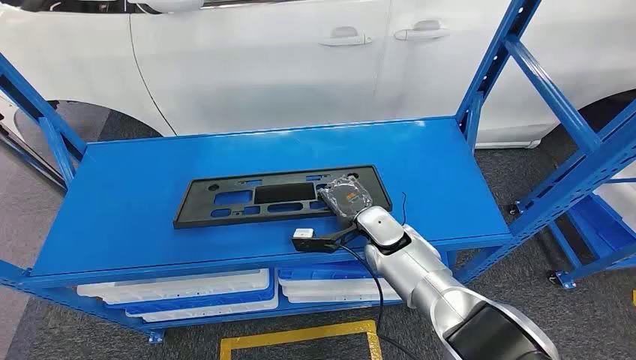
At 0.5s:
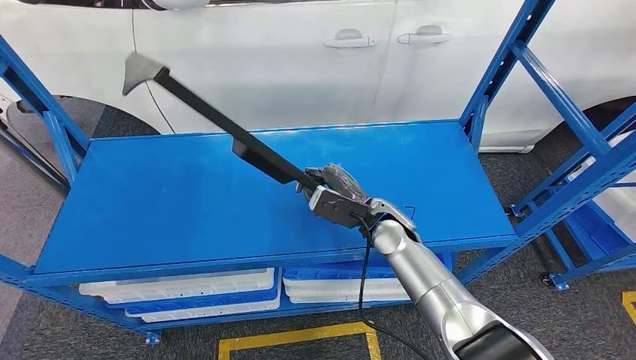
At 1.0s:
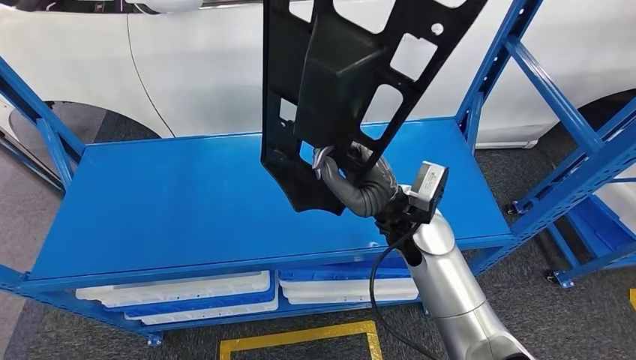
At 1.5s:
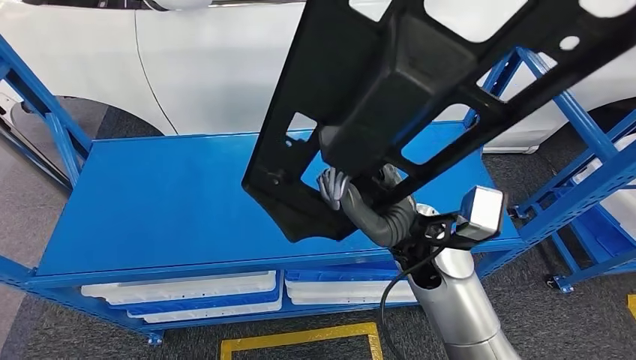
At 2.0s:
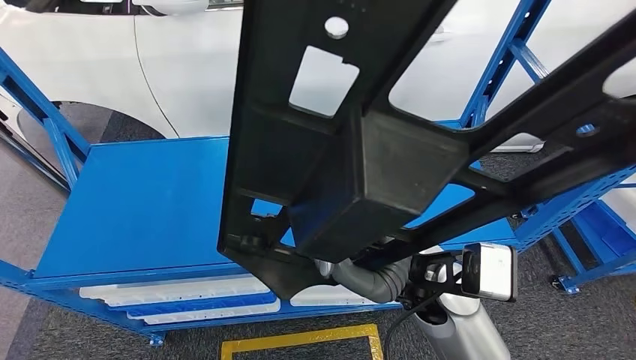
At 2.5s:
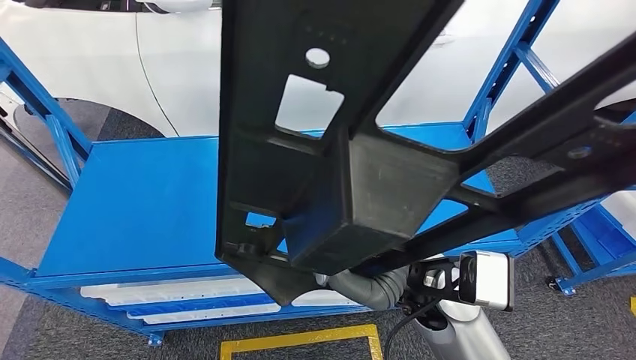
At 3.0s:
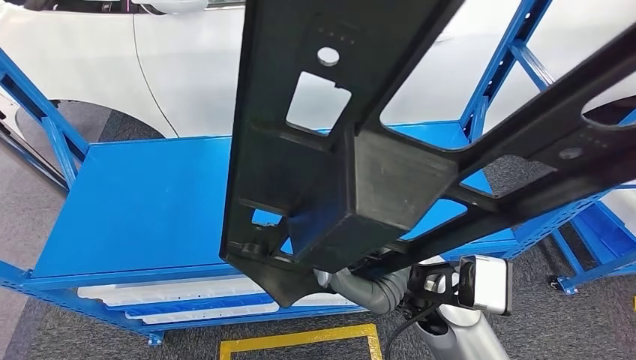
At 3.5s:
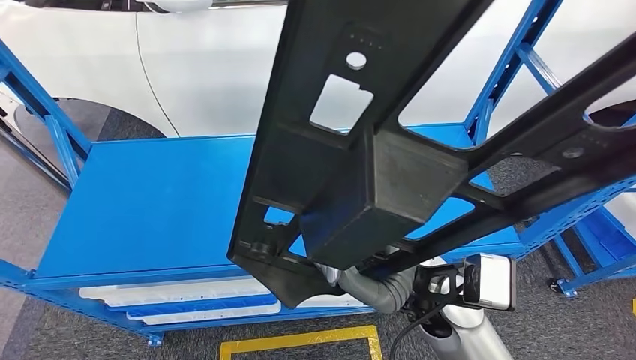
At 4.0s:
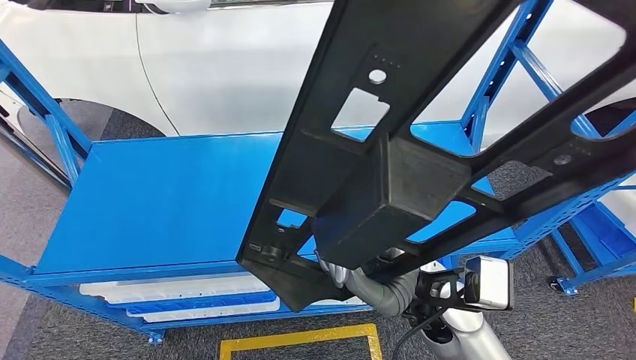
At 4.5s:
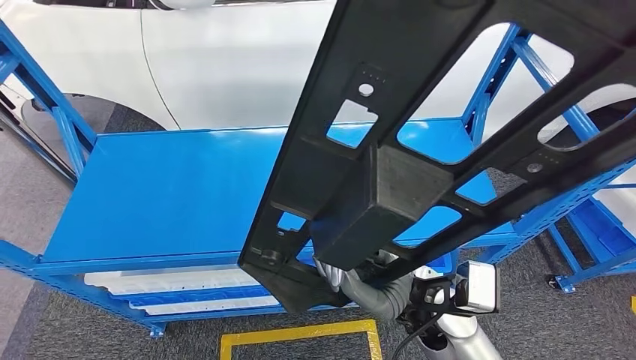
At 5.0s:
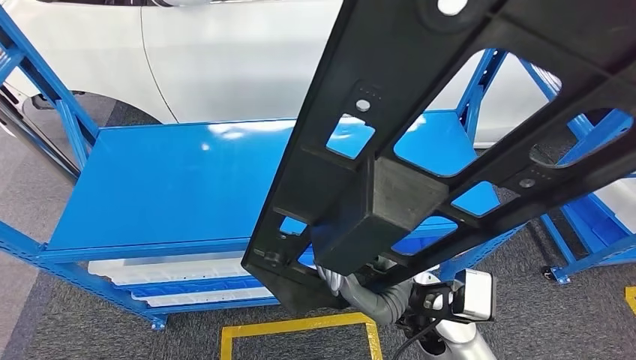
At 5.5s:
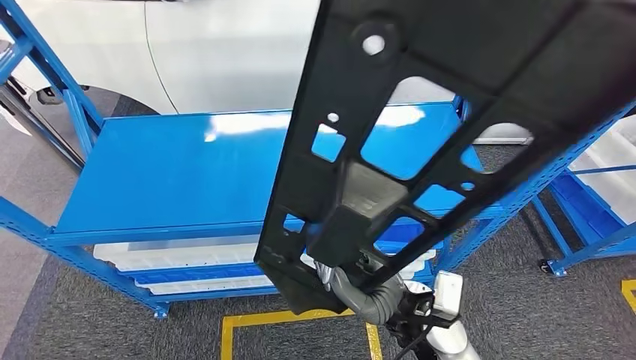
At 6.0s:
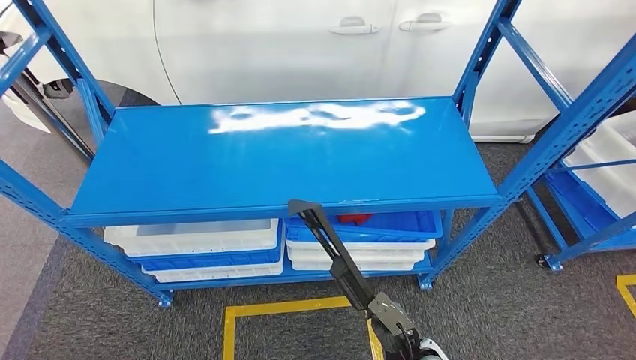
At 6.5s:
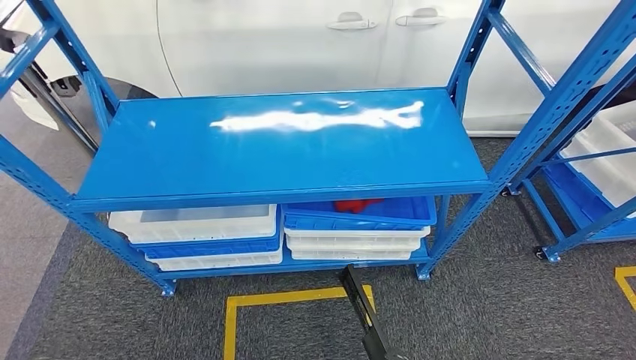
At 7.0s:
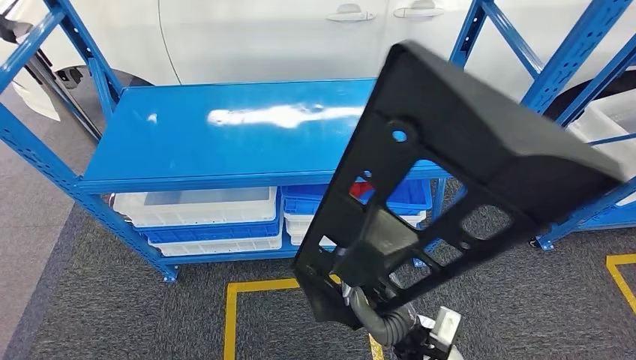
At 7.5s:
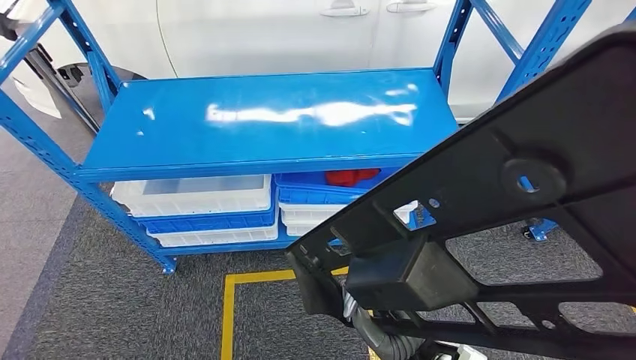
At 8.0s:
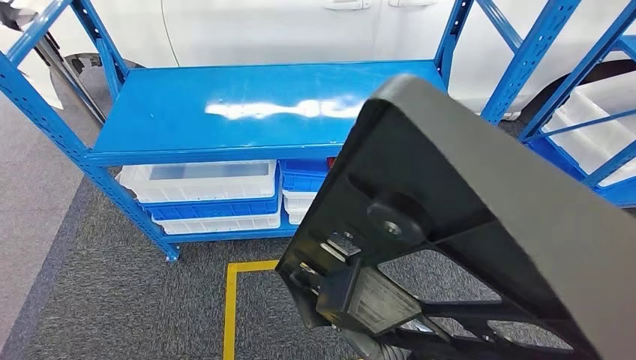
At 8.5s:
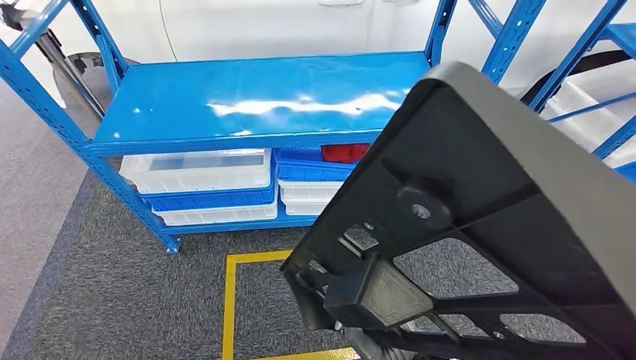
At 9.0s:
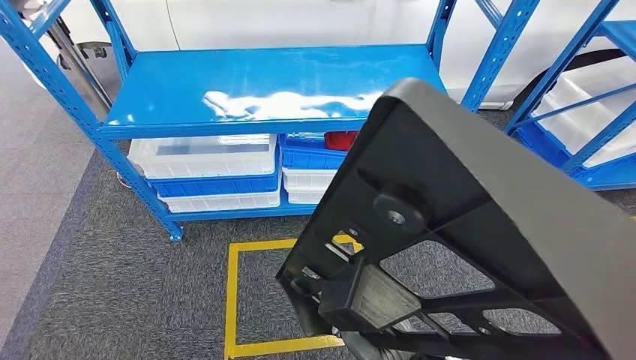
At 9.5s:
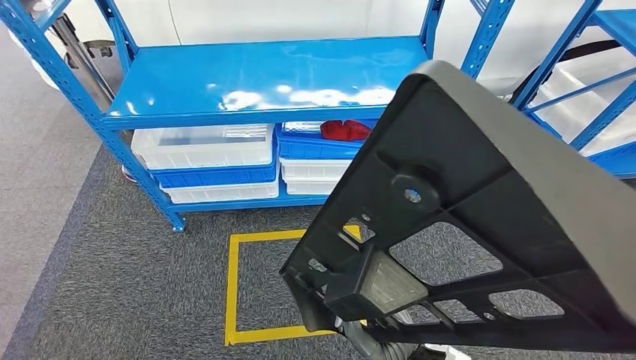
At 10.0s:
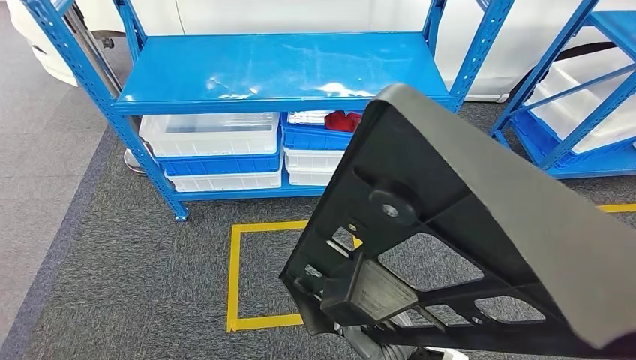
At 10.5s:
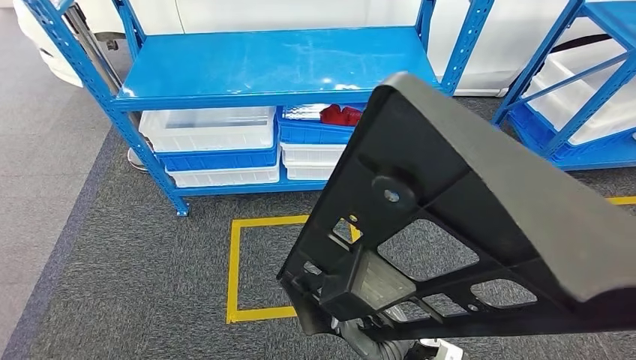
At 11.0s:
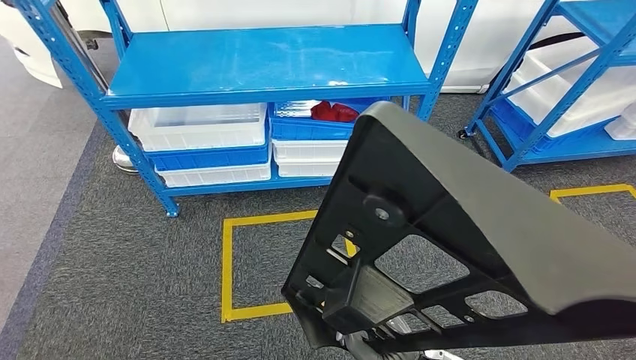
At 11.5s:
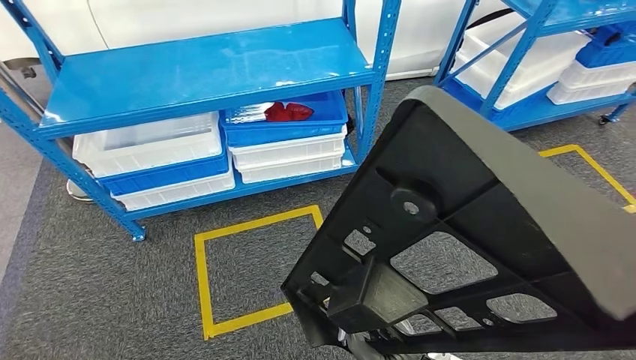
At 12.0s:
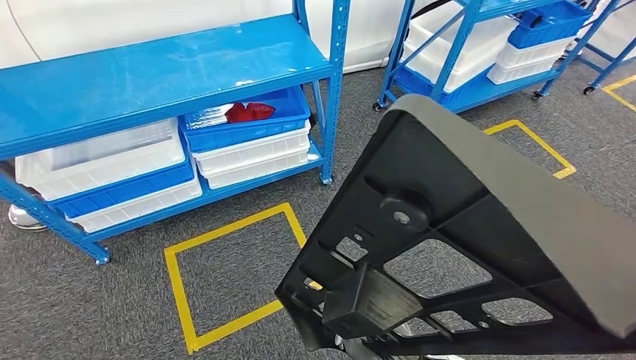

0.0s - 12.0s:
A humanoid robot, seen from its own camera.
Step, 0.0s - 5.5s: Pick up the large material from the shelf.

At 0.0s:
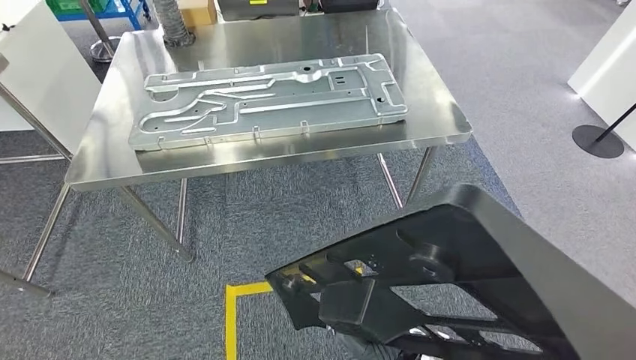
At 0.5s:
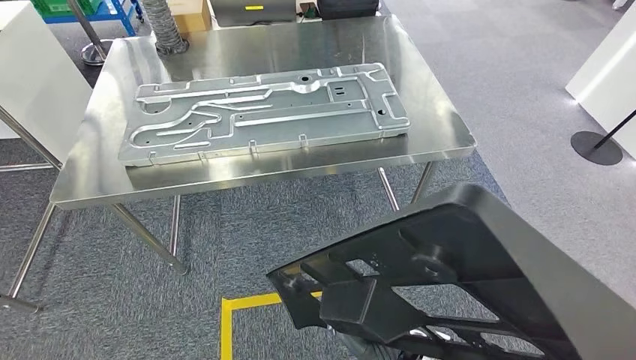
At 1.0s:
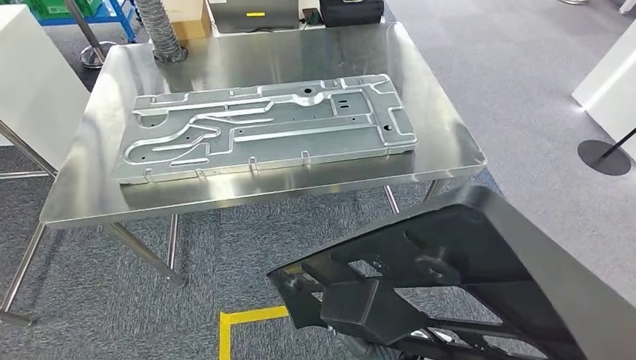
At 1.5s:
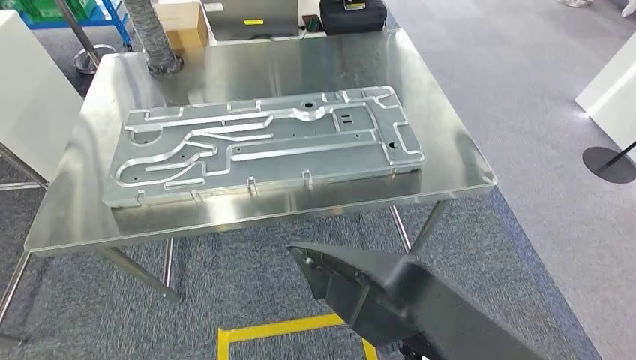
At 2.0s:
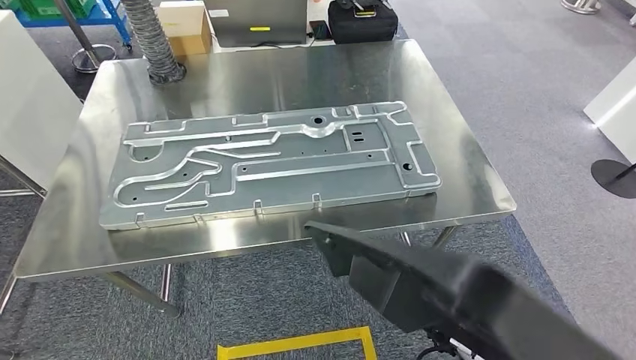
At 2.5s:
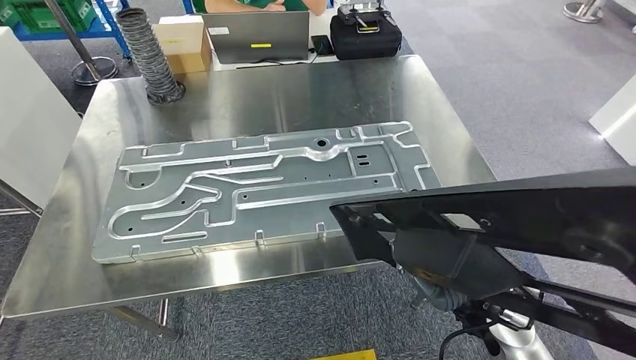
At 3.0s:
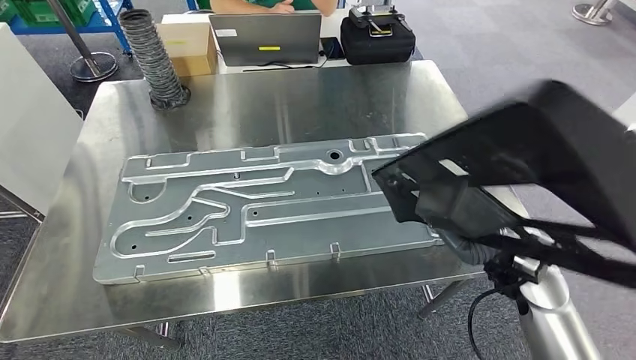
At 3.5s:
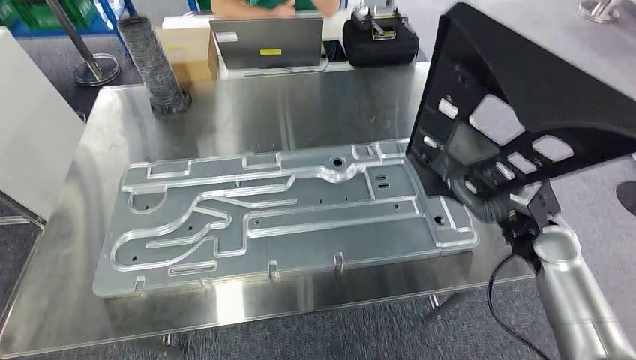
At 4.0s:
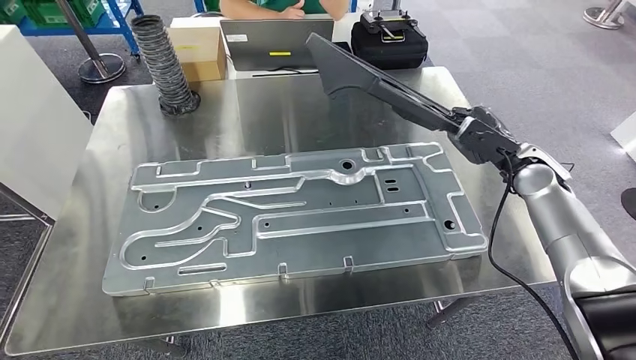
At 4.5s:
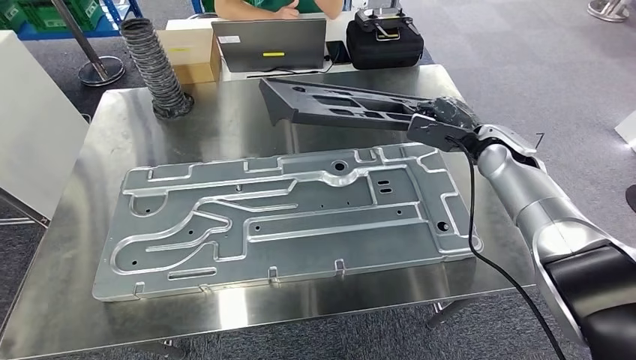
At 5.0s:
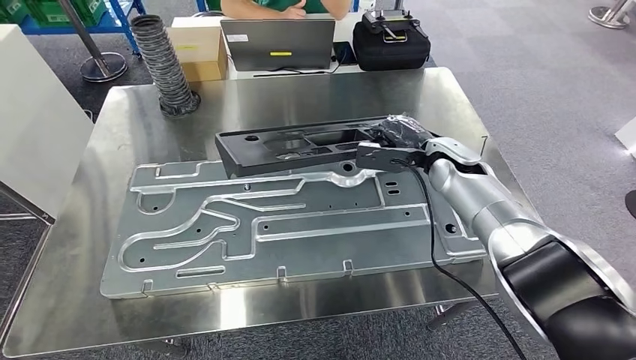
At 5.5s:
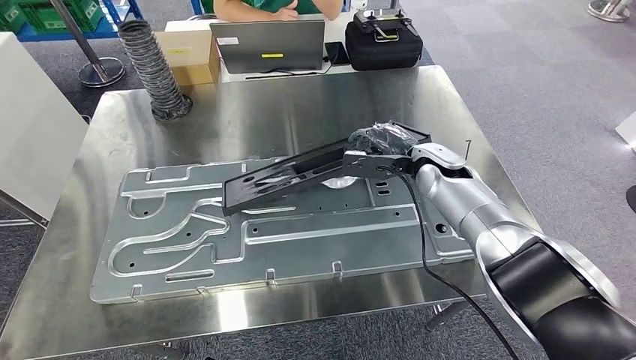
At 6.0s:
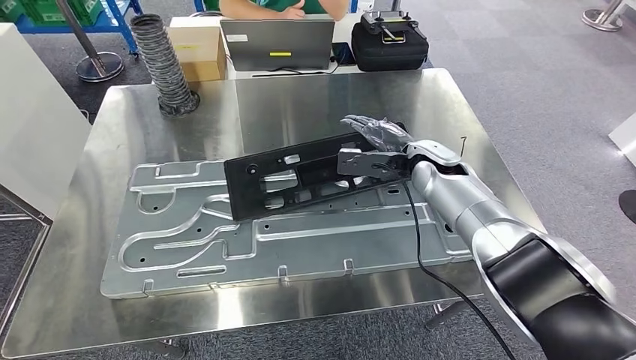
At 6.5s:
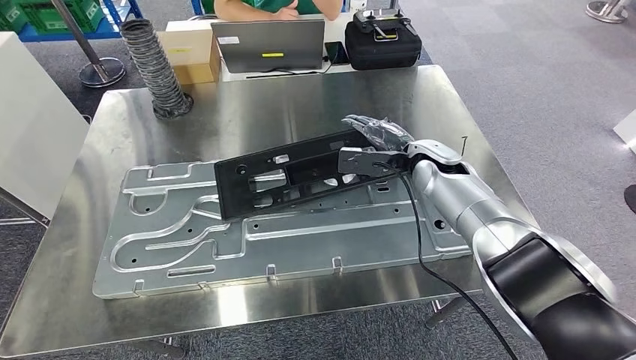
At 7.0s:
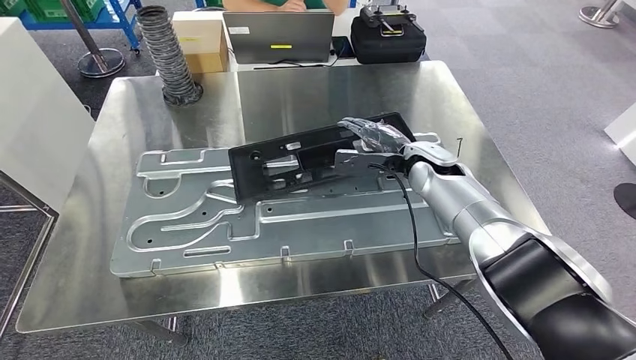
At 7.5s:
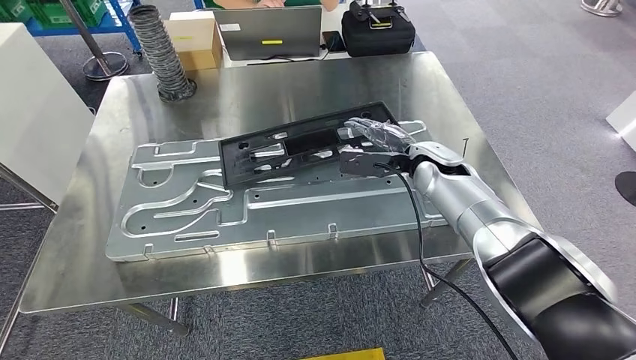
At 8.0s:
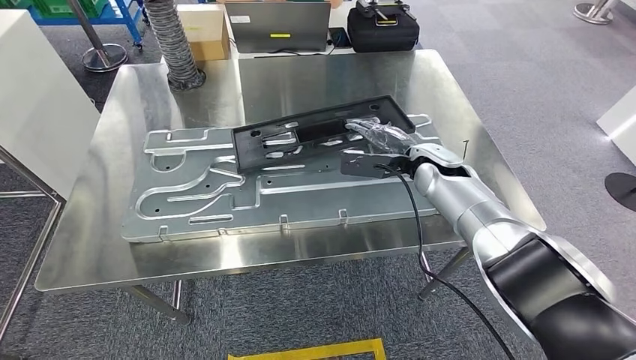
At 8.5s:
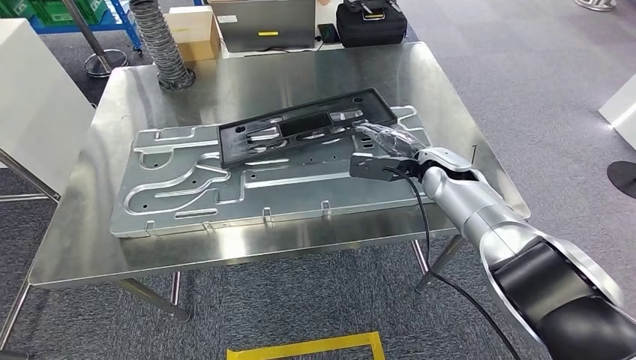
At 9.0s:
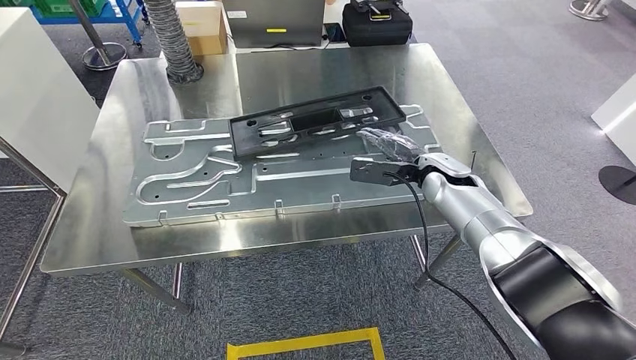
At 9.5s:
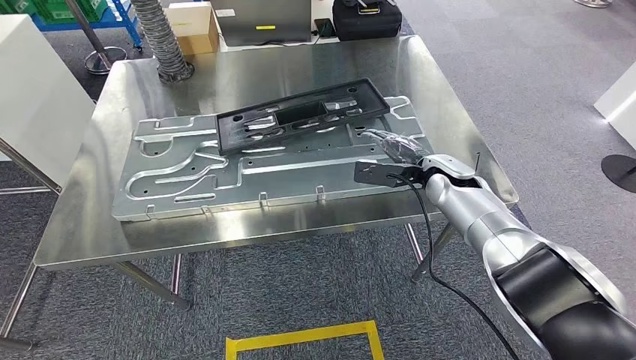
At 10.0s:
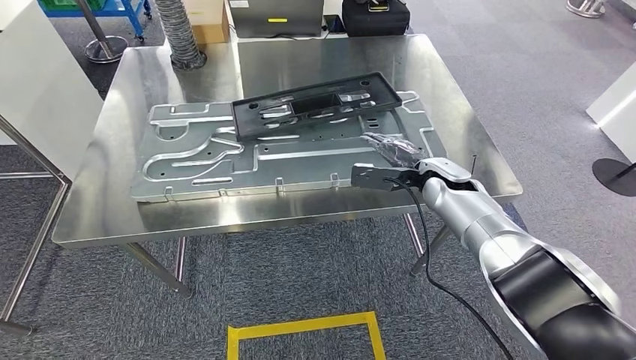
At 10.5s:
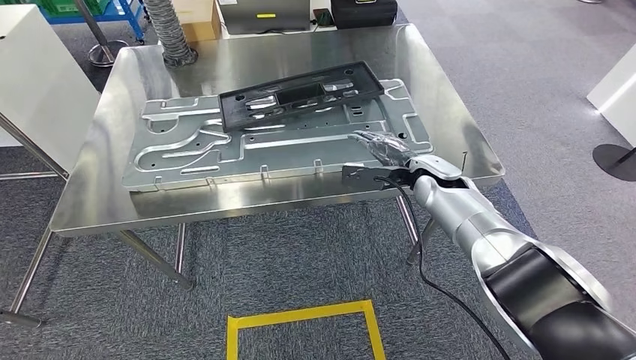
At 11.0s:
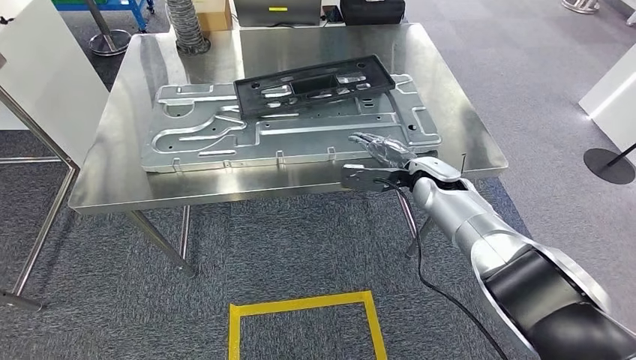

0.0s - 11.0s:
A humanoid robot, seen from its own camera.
Step, 4.0s - 7.5s: Insert the large material into the corresponding slot on the workbench.
